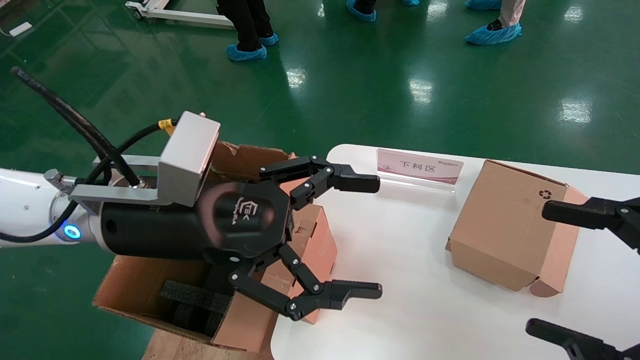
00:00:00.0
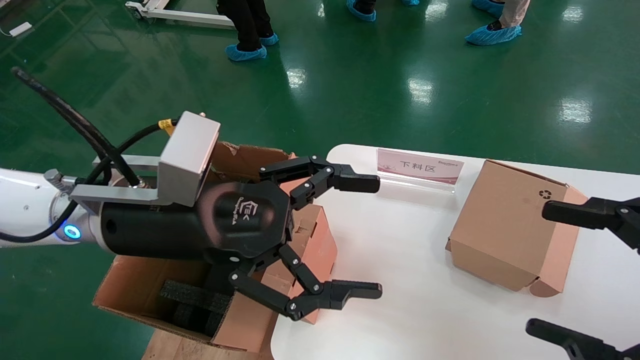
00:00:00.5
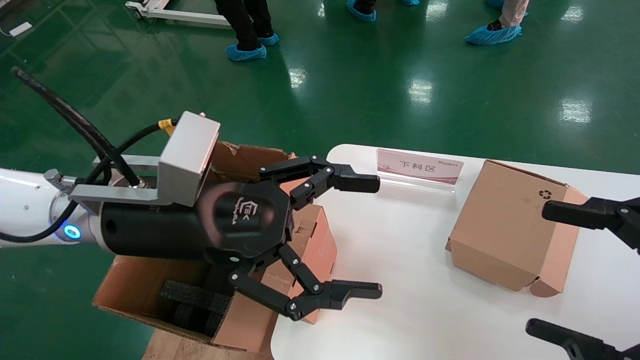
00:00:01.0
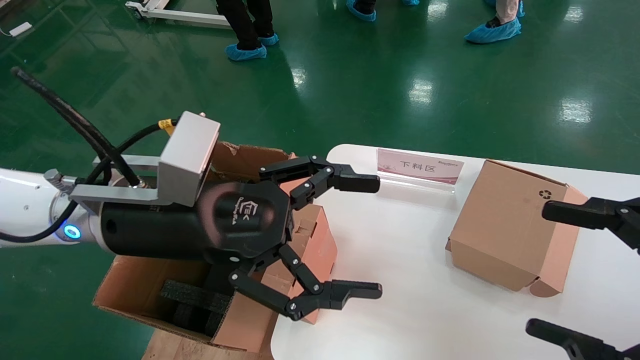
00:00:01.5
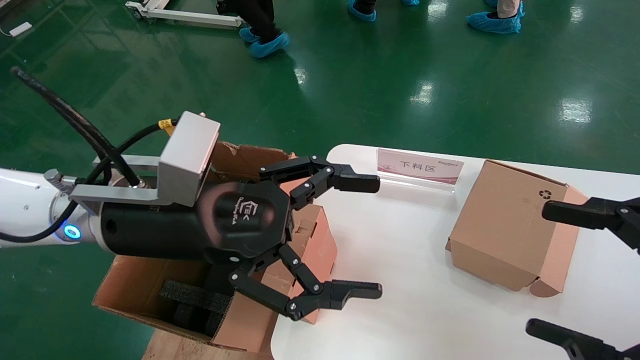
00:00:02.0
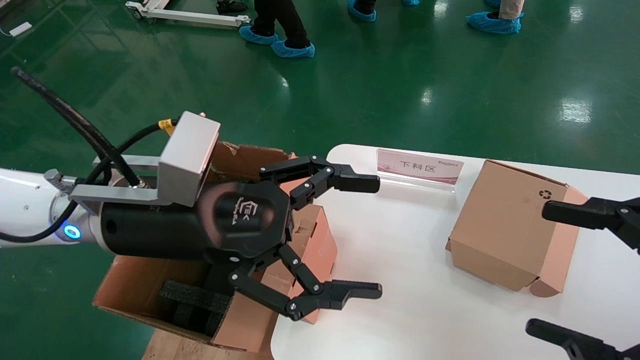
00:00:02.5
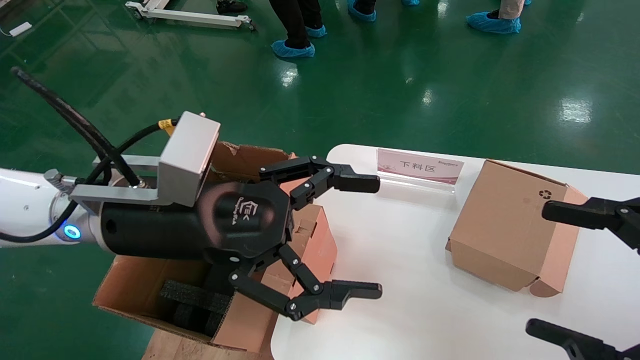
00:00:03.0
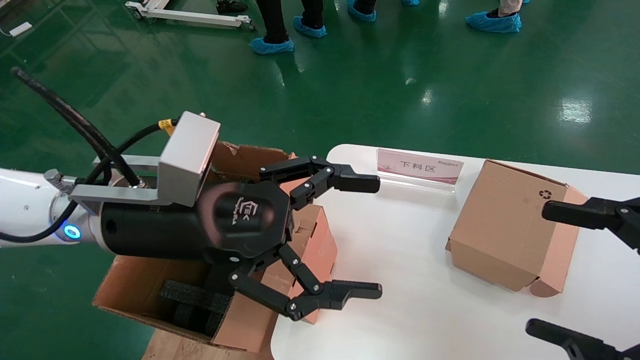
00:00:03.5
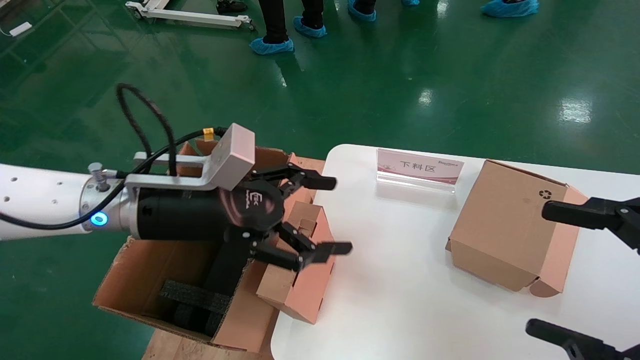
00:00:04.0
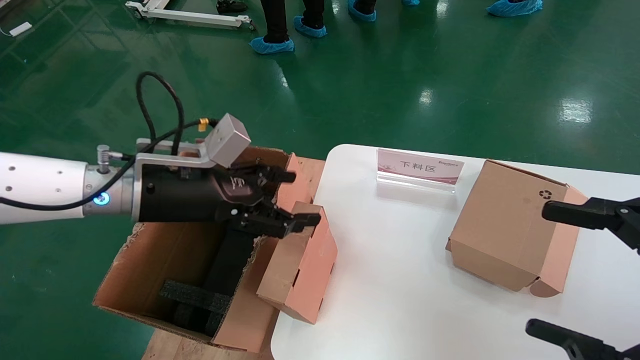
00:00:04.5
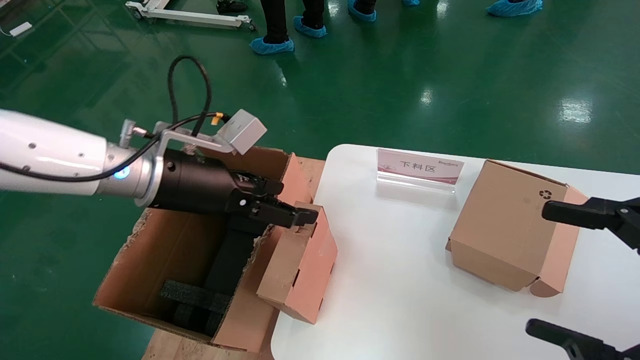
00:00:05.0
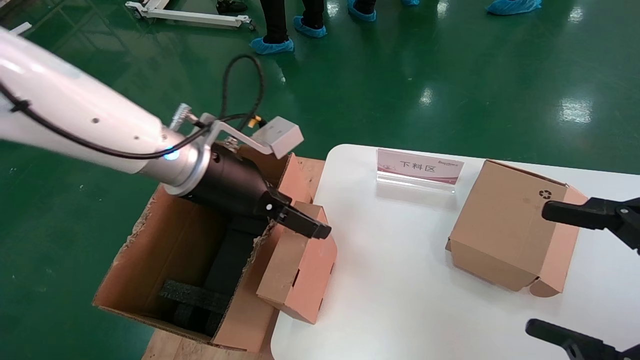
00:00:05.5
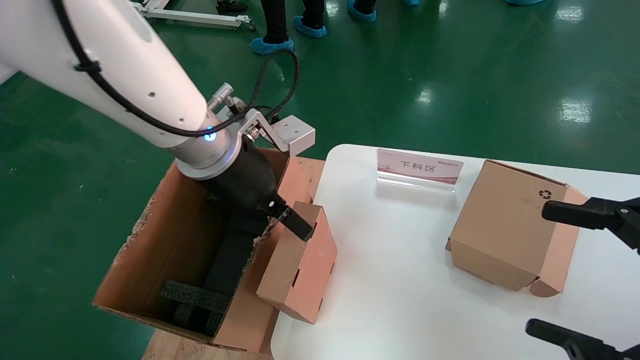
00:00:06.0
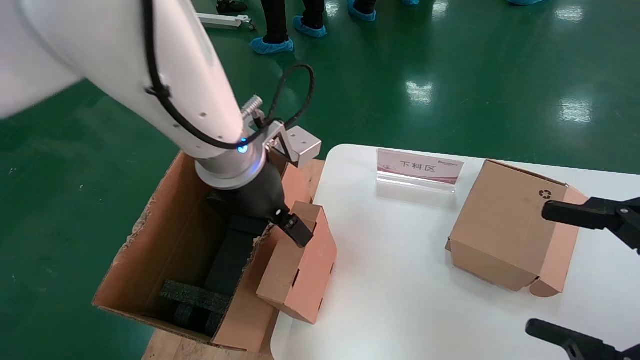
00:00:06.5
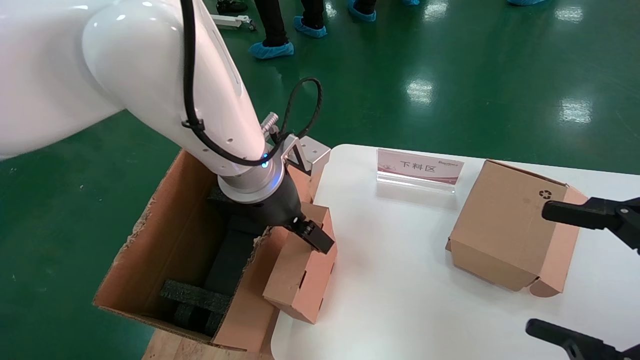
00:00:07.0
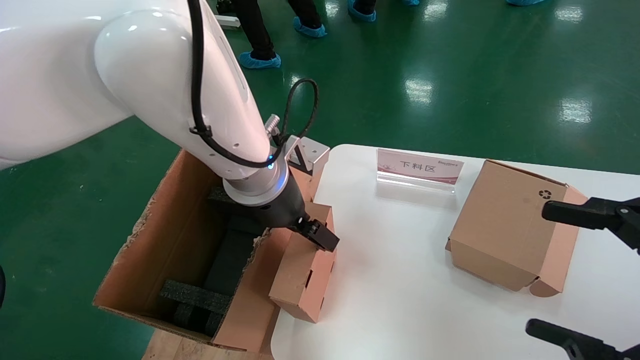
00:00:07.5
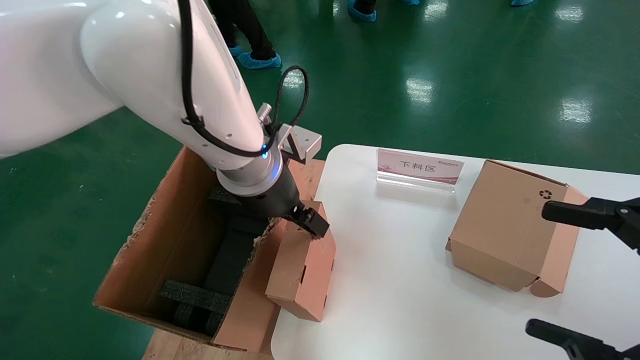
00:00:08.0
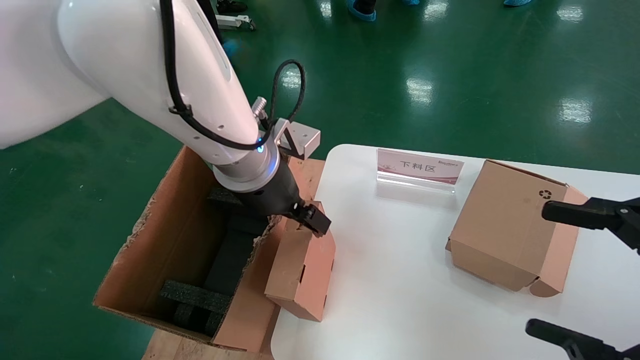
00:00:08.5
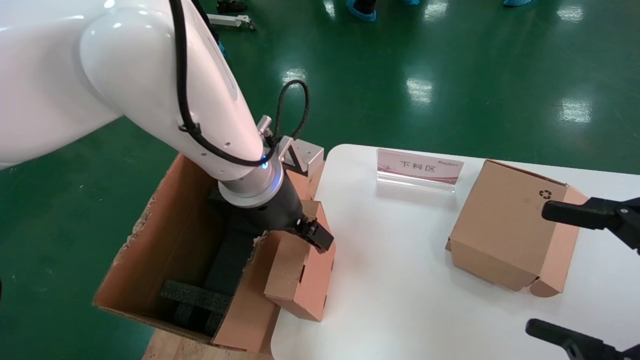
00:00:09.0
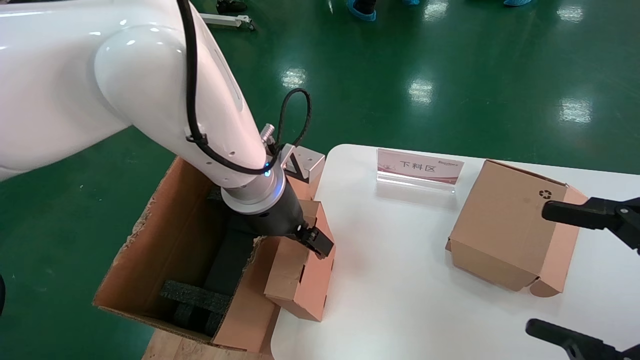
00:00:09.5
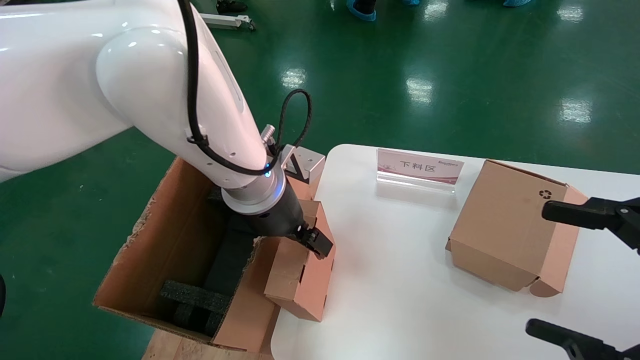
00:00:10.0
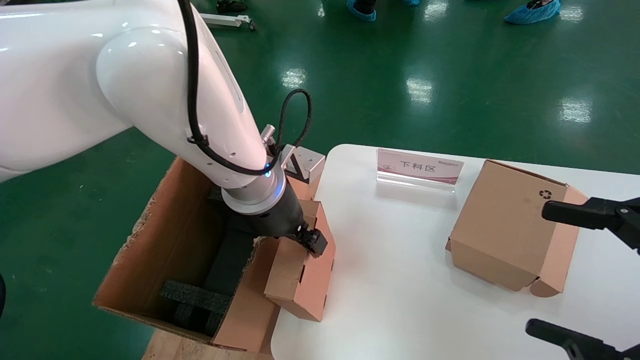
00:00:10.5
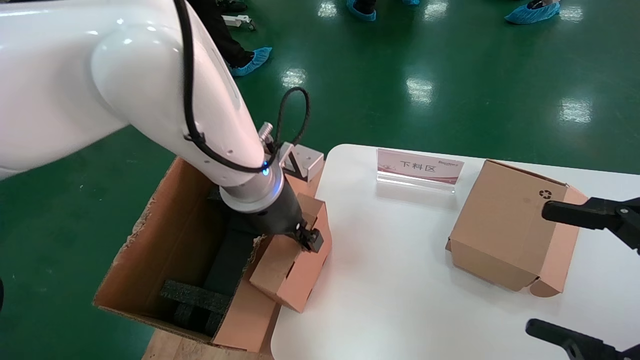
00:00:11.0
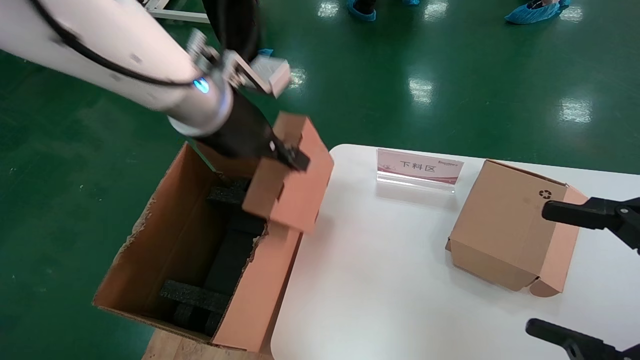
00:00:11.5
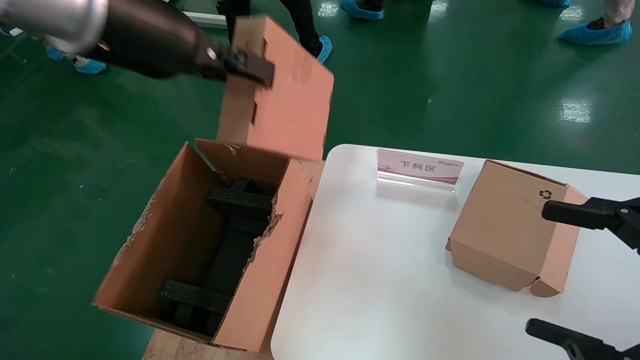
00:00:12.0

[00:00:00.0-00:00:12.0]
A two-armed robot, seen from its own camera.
Task of the whole recording: put the box on the table into the big box.
Step, 00:00:00.0 to 00:00:10.5: Grasp the paper box.
00:00:00.0 to 00:00:02.0: Neither gripper changes place.
00:00:02.0 to 00:00:04.0: The left gripper moves some 5 cm.
00:00:04.0 to 00:00:06.0: The left gripper travels to the right and upward by about 10 cm.
00:00:06.0 to 00:00:10.0: The grippers move only a little.
00:00:10.0 to 00:00:12.0: The left gripper travels upward, to the left and backward by roughly 20 cm, and closes.

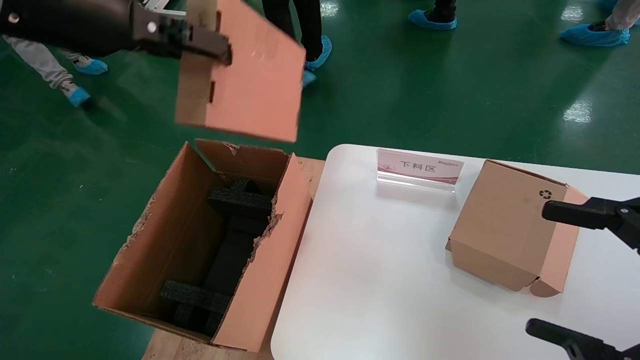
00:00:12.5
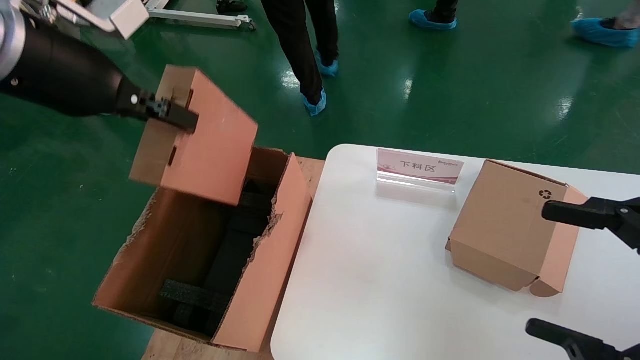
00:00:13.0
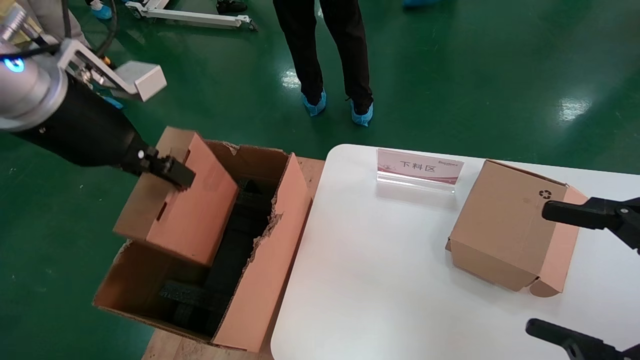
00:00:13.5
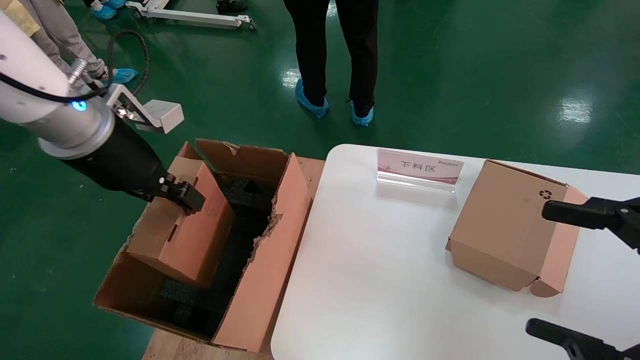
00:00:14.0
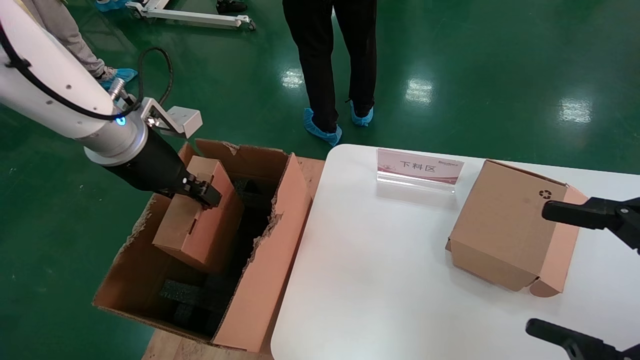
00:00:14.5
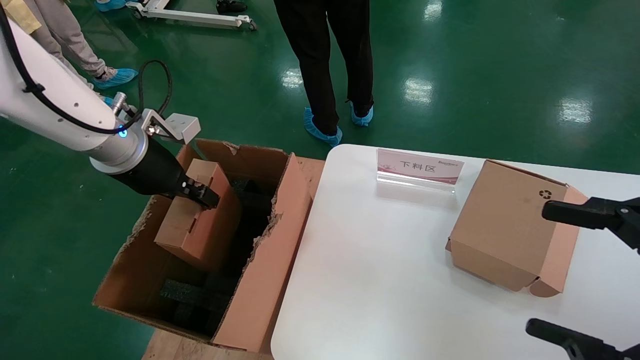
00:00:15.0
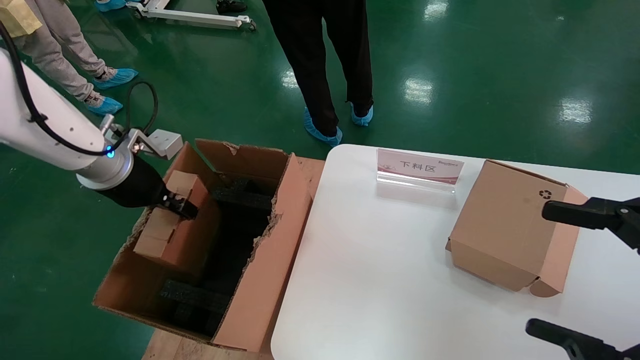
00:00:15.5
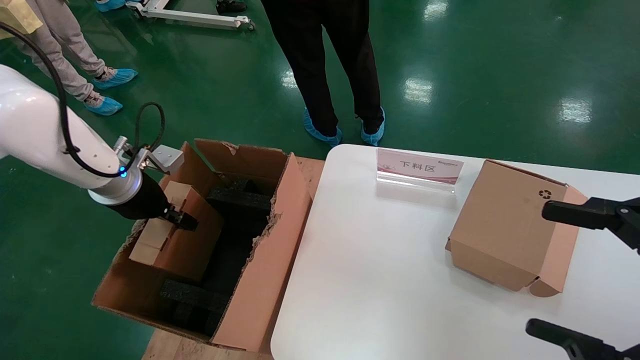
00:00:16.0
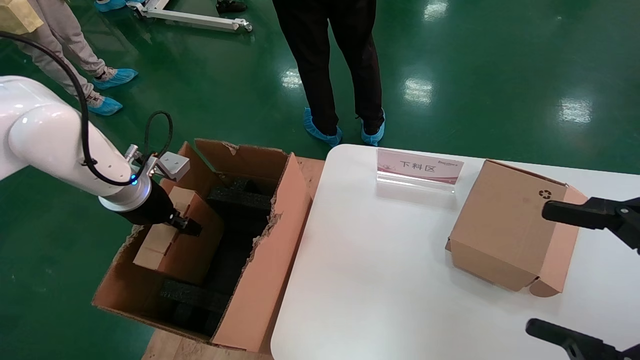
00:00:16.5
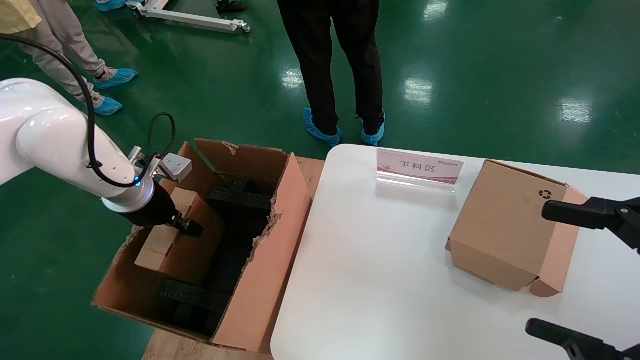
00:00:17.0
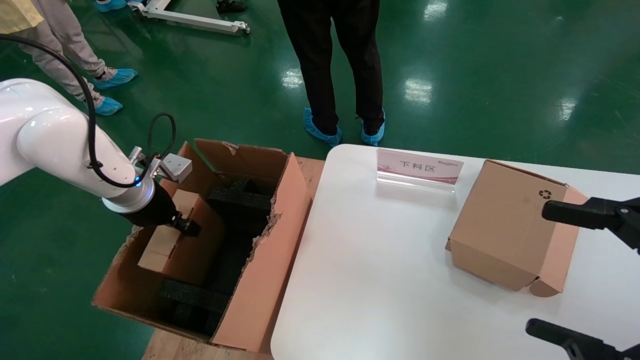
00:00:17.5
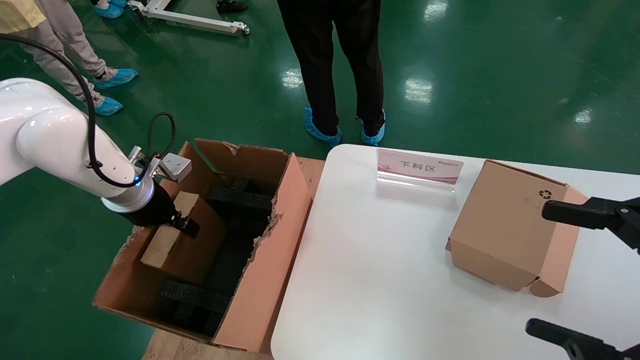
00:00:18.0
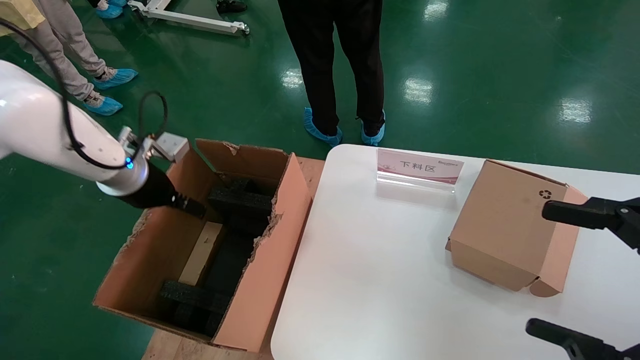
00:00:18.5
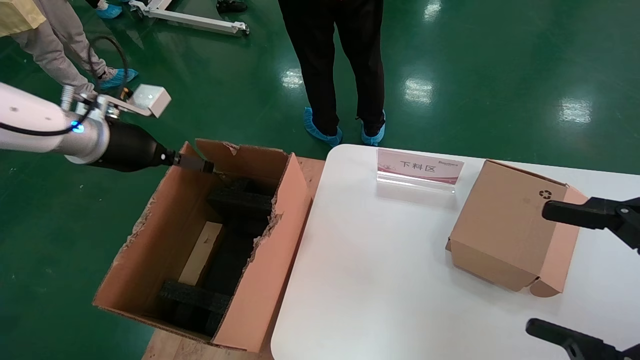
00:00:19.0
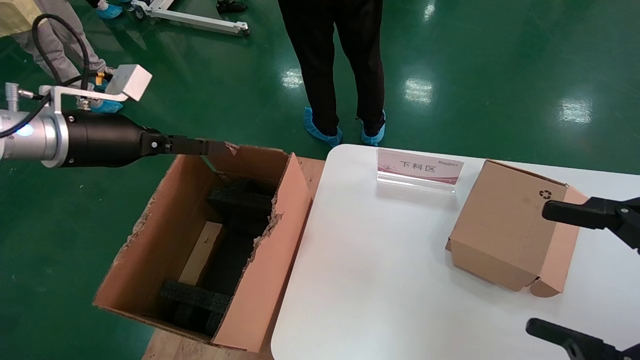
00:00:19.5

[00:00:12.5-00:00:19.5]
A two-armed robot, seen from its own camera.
Task of the whole recording: put the box on the table into the big box.
Step, 00:00:12.5 to 00:00:18.0: Place the paper box in the another big box.
00:00:12.5 to 00:00:14.5: The left gripper is displaced downward and forward by about 15 cm.
00:00:14.5 to 00:00:16.0: The left gripper is displaced downward and to the left by roughly 10 cm.
00:00:16.0 to 00:00:17.5: The grippers move only a little.
00:00:17.5 to 00:00:19.5: The left gripper travels upward and backward by about 10 cm, and opens up.
